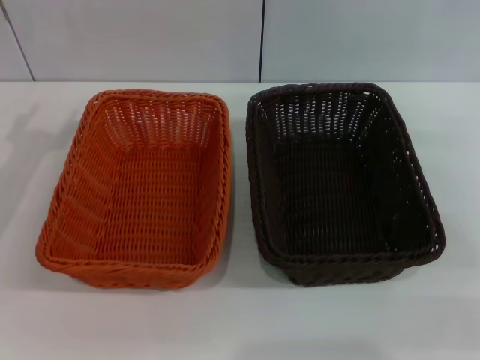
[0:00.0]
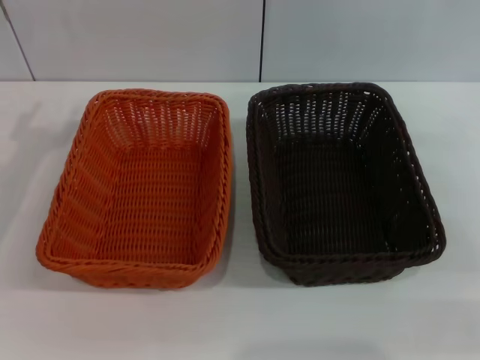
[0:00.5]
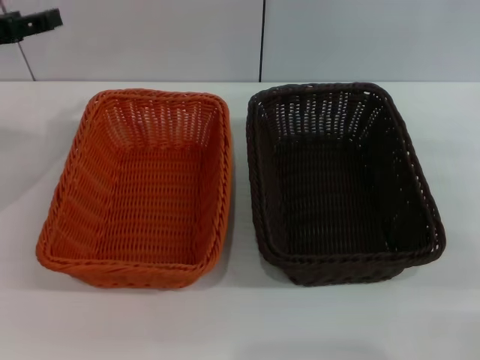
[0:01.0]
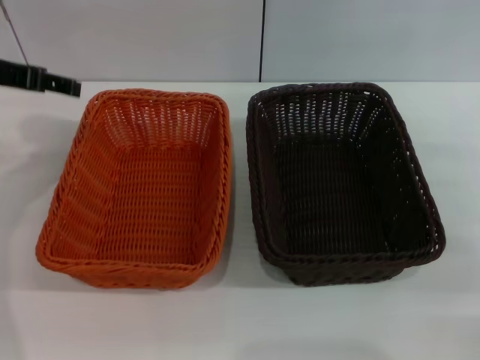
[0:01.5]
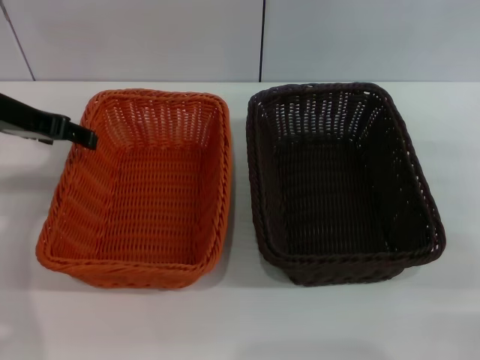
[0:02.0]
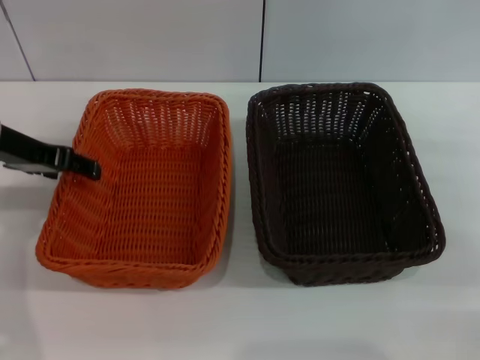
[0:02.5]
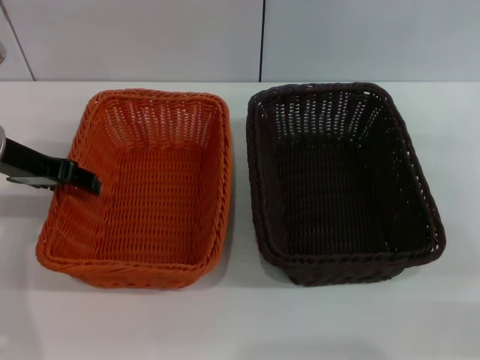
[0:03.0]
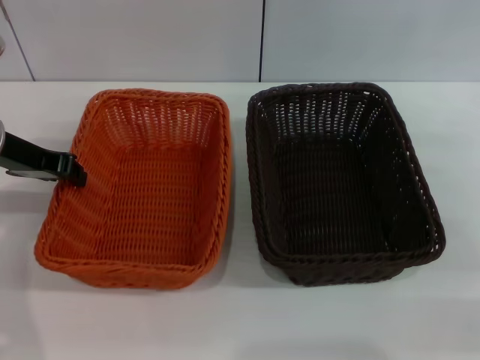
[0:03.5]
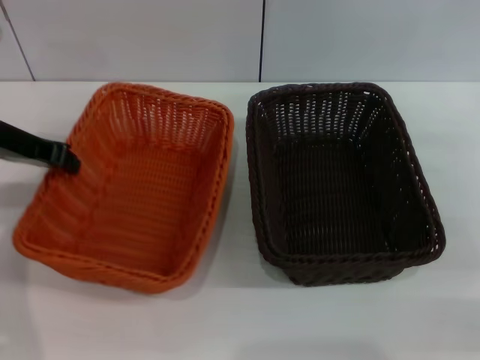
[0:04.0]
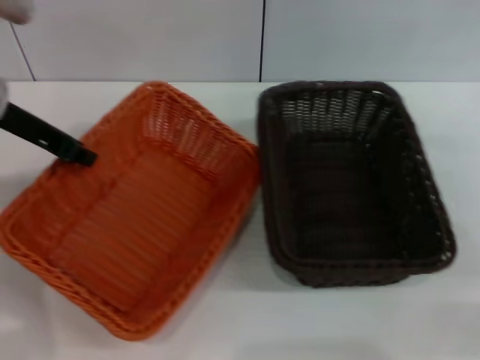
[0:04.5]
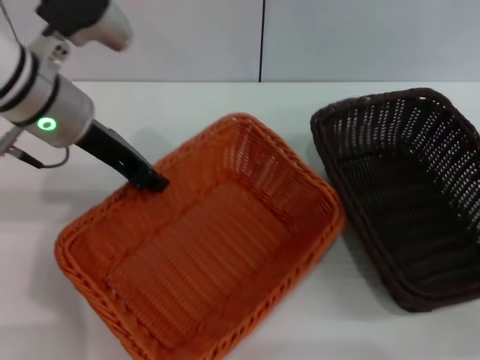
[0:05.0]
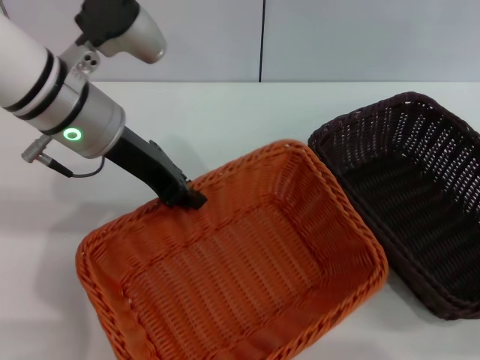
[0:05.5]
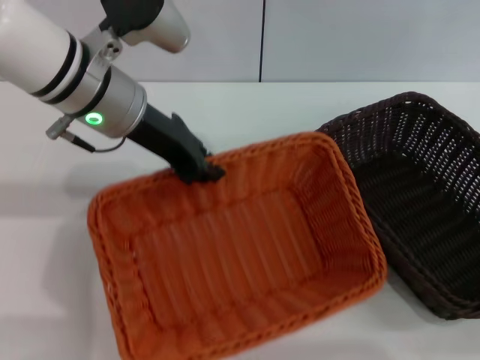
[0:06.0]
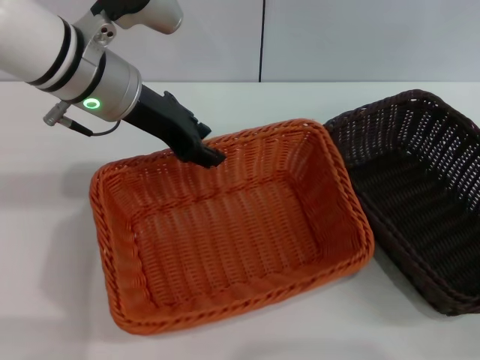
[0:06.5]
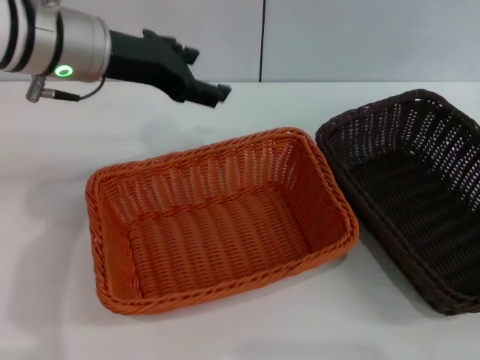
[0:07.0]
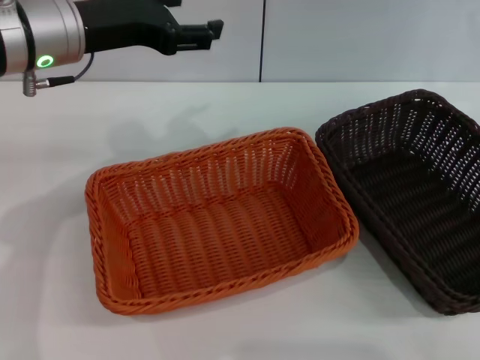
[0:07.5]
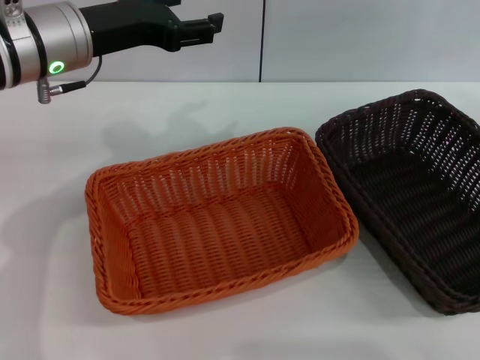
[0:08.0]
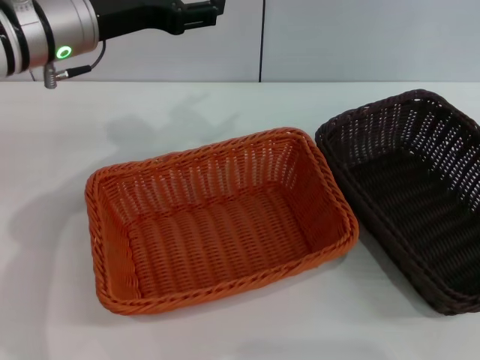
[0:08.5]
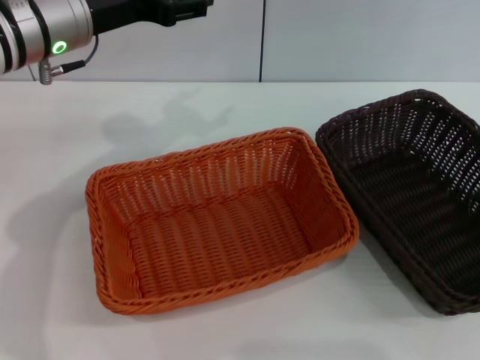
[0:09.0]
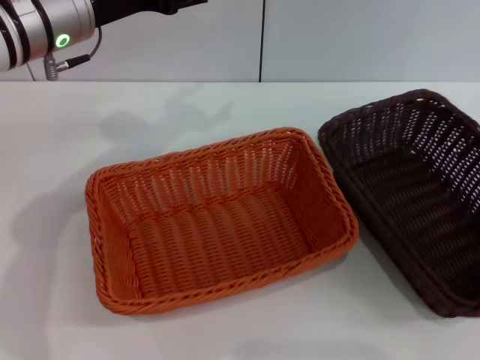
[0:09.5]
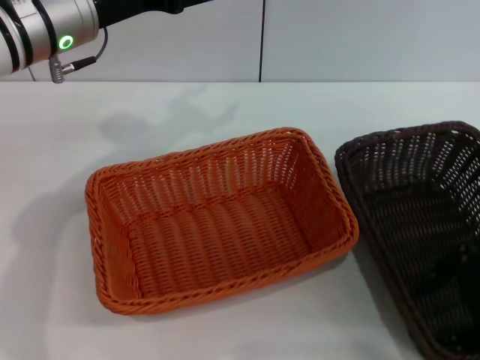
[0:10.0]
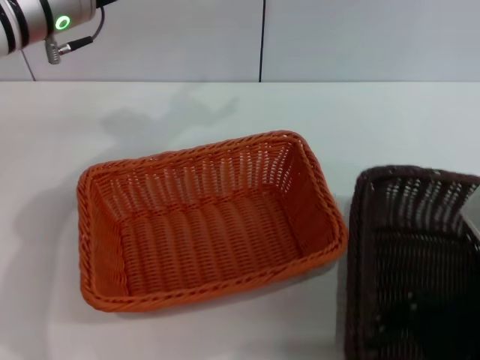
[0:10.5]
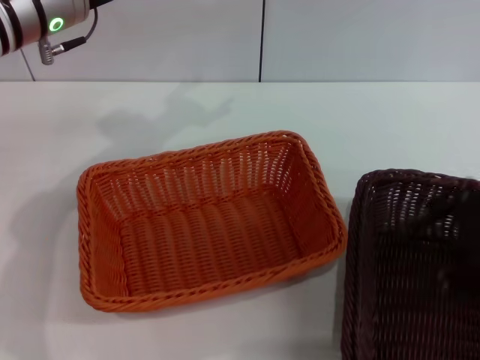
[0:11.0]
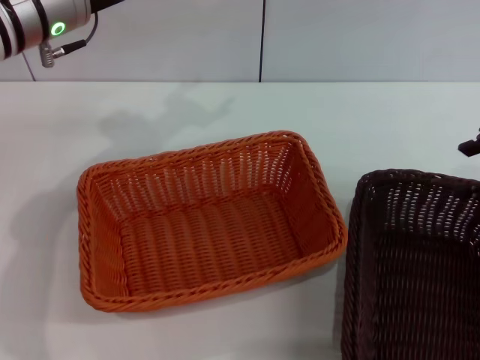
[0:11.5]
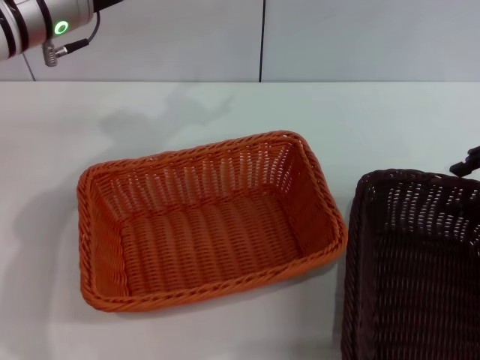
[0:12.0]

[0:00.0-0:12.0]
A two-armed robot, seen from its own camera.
Step, 0:00.0 to 0:04.5: Pick up the light basket with the left gripper.
Step, 0:05.0 to 0:06.5: Place the light basket in the center of view with the left gripper.
0:00.0 to 0:02.0: The left gripper moves upward, to the right and forward, approximately 10 cm.
0:02.0 to 0:04.0: The left gripper closes up.
0:04.0 to 0:06.0: The left gripper shifts some 15 cm to the right.
0:06.0 to 0:08.0: The right gripper shifts roughly 15 cm upward; the left gripper changes place by about 5 cm, and opens up.
0:08.0 to 0:10.0: The right gripper travels backward, downward and to the left by approximately 20 cm.
0:10.0 to 0:12.0: The right gripper moves forward and to the right, roughly 10 cm.

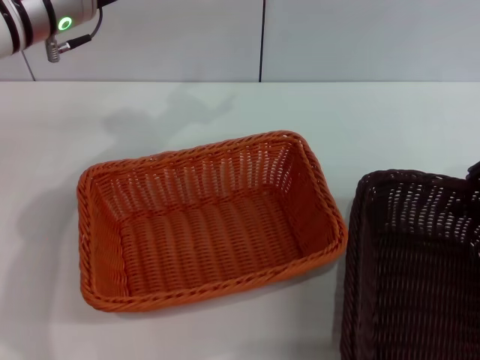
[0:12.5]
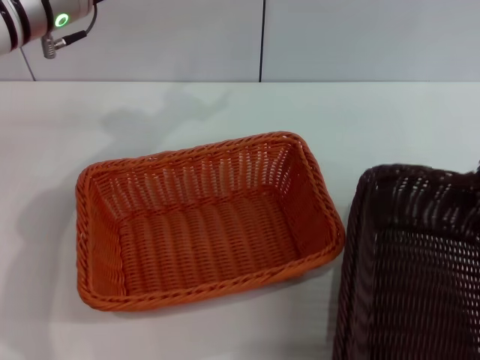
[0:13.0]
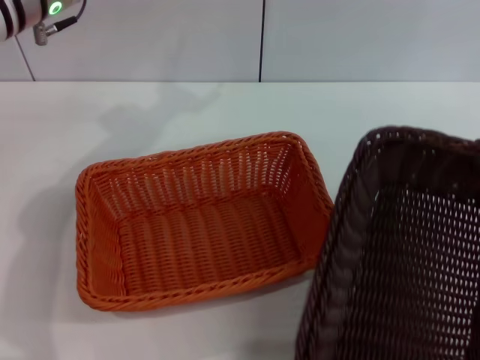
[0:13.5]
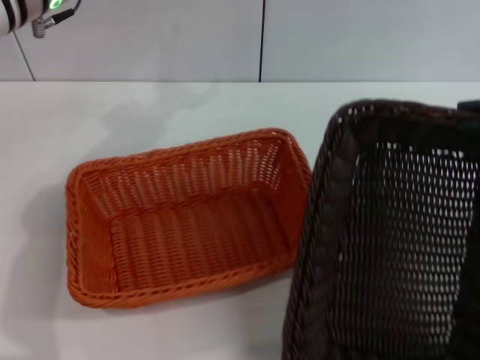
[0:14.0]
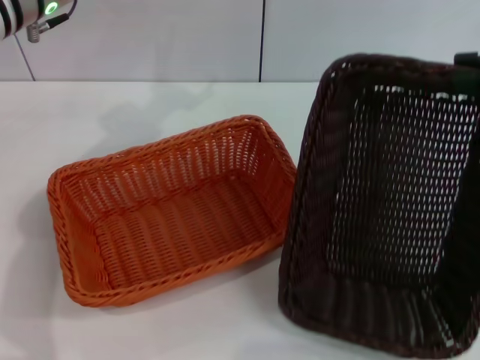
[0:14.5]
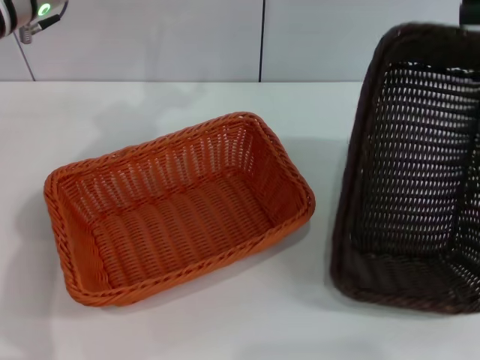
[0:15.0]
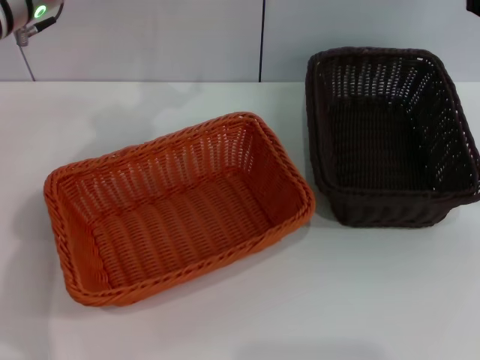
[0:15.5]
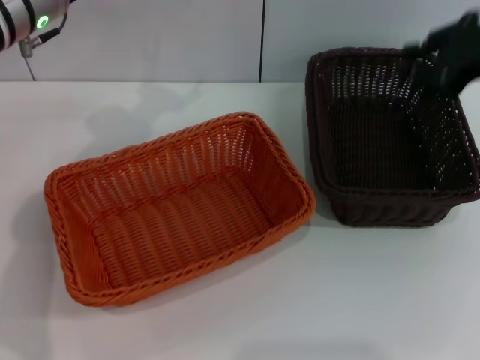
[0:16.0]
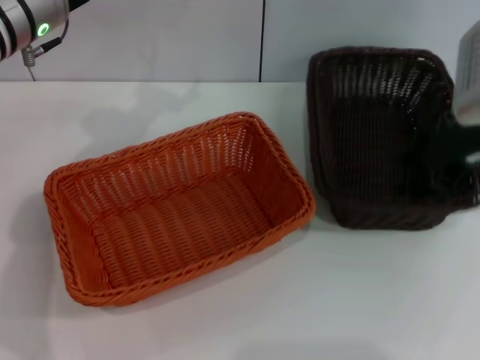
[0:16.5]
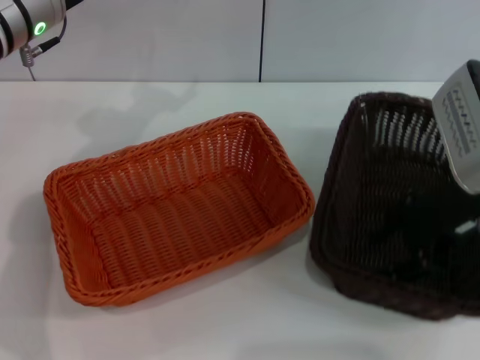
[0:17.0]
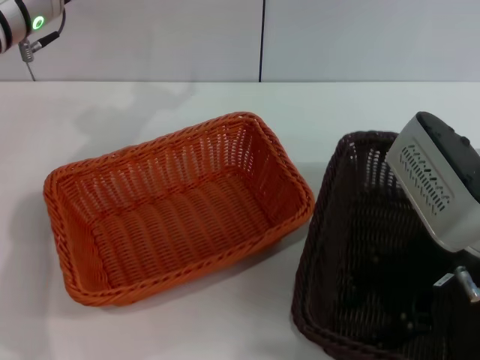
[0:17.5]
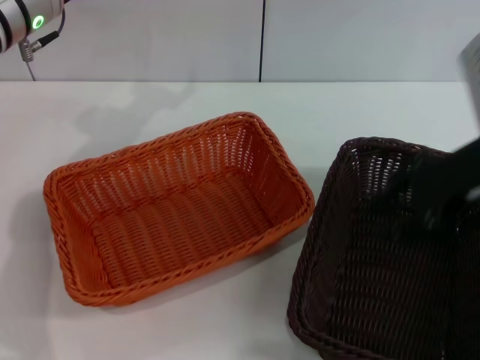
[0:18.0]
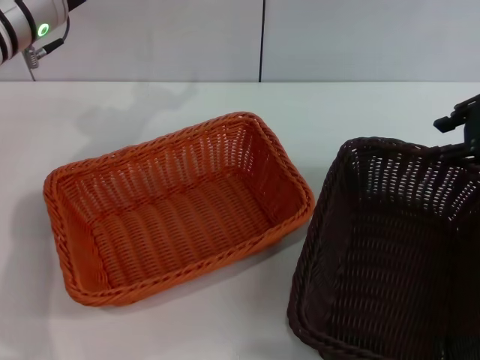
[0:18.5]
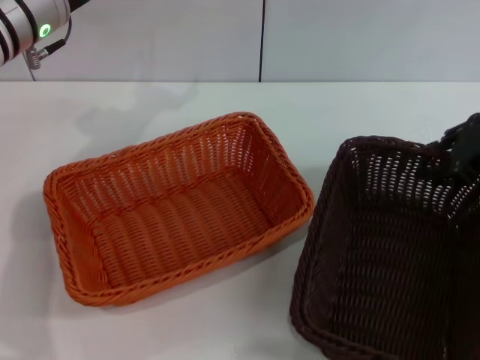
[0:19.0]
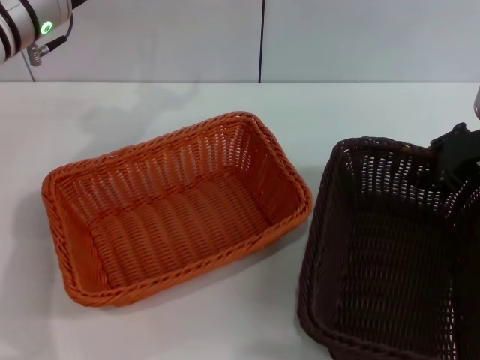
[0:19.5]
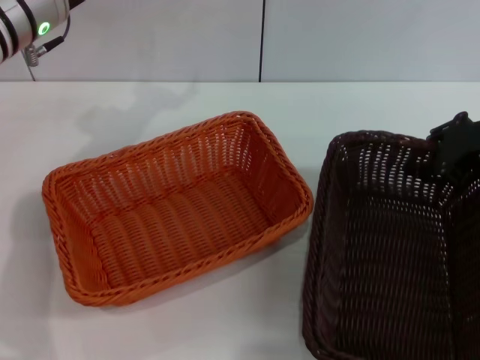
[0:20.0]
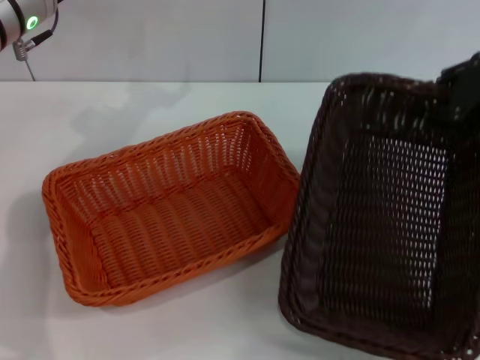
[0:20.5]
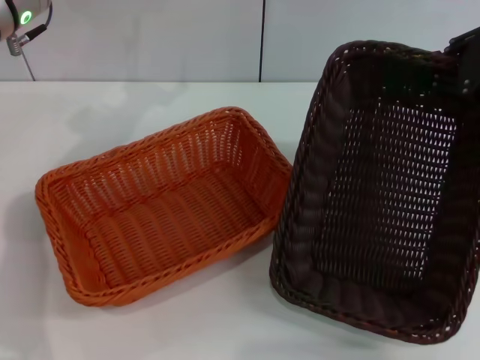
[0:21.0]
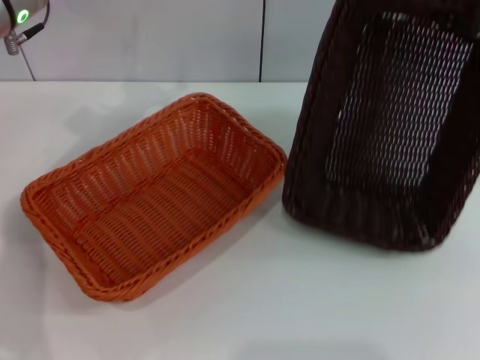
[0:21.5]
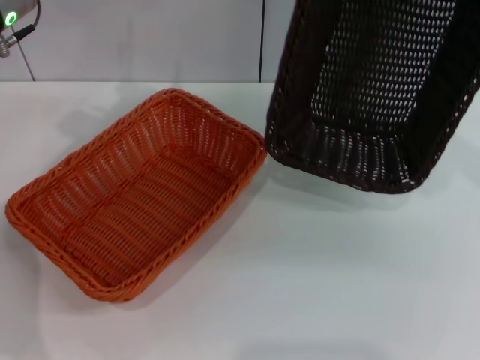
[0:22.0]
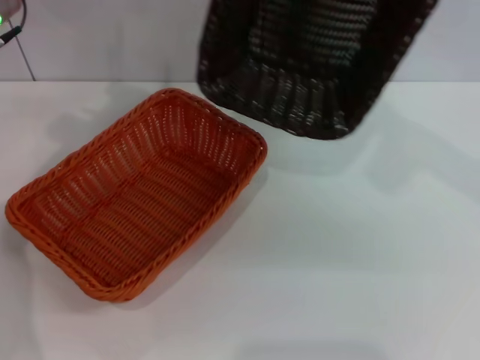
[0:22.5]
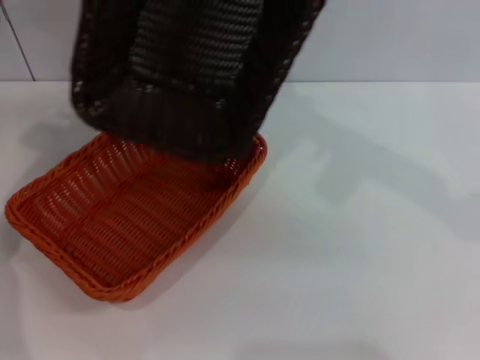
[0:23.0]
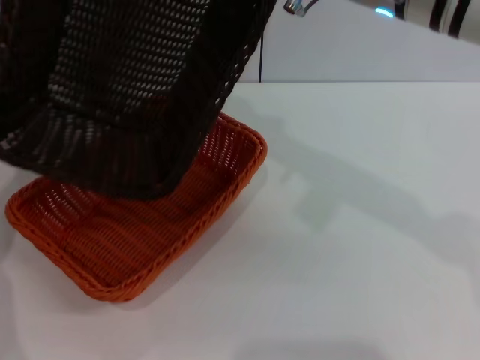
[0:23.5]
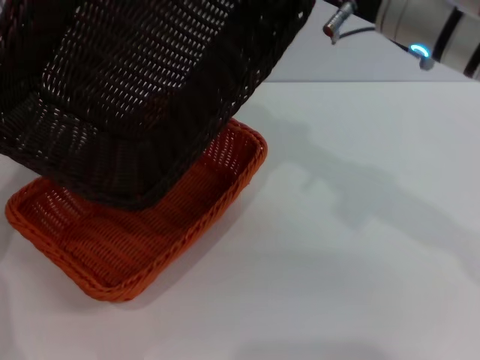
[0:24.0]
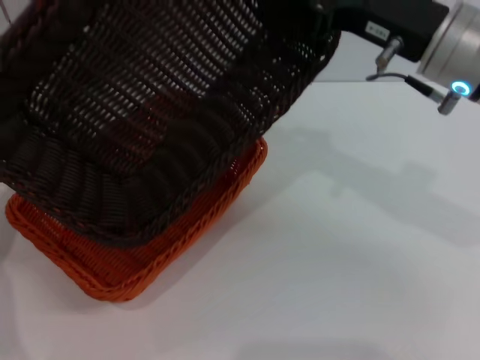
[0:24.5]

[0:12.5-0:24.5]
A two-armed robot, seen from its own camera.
Step, 0:12.5 to 0:20.0: Pick up the dark basket with the right gripper.
0:12.5 to 0:14.5: The right gripper is displaced upward by roughly 10 cm, and closes.
0:14.5 to 0:16.5: The right gripper is displaced to the left, downward and forward by some 15 cm, and opens up.
0:18.5 to 0:20.5: The right gripper reaches approximately 5 cm downward, then returns.
0:20.5 to 0:22.5: The right gripper heads upward and to the left, covering roughly 15 cm.
0:22.5 to 0:24.5: The right gripper is displaced downward by approximately 15 cm.

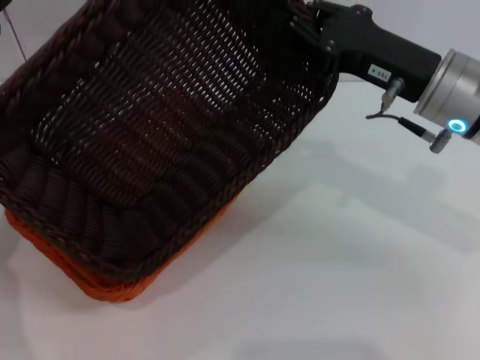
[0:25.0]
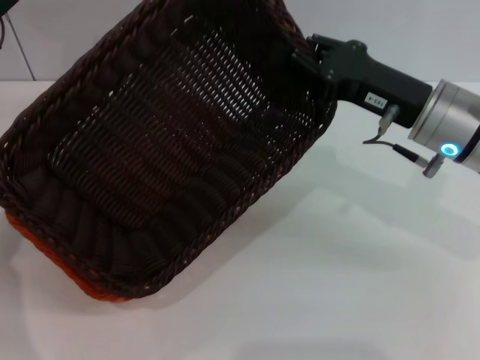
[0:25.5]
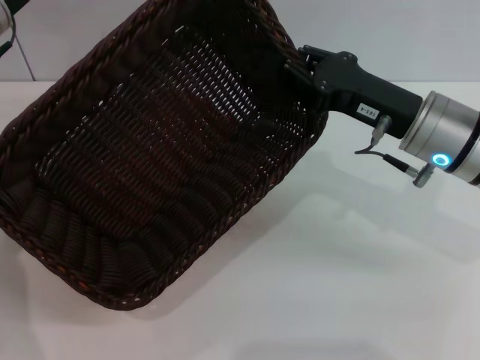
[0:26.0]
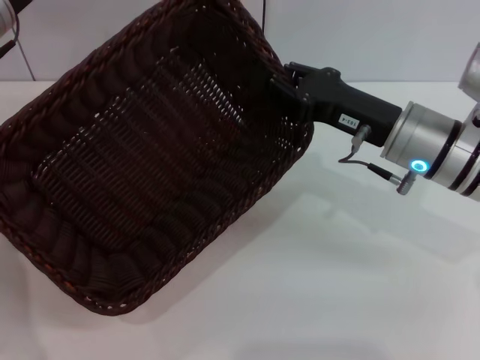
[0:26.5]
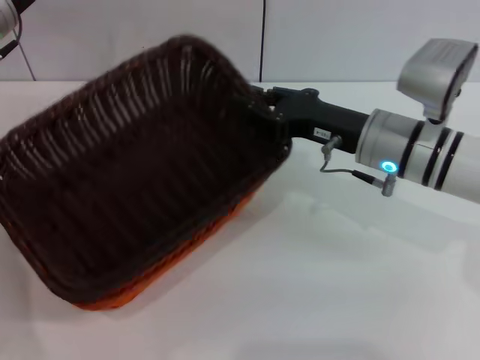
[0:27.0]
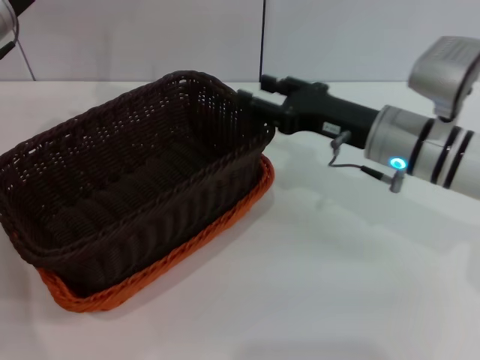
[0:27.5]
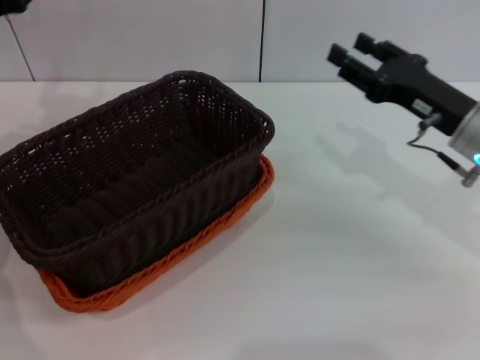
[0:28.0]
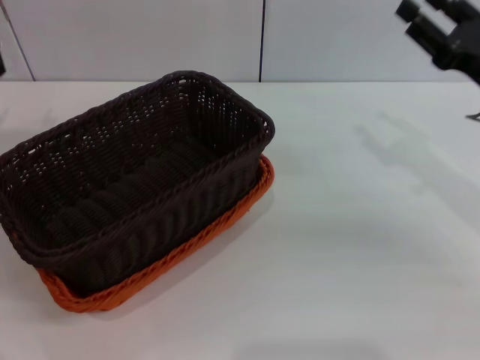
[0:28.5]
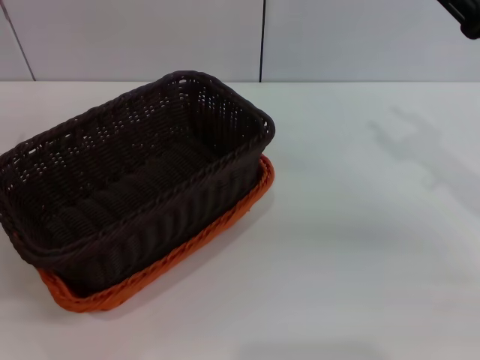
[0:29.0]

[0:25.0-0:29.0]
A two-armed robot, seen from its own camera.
Step, 0:25.0 to 0:27.0: Place the dark basket on the light basket with the right gripper.
0:25.0 to 0:27.0: The right gripper goes some 5 cm downward.
0:27.0 to 0:29.0: The right gripper shifts approximately 15 cm to the right and upward, and opens; the left gripper shifts roughly 20 cm downward, to the left and backward.
